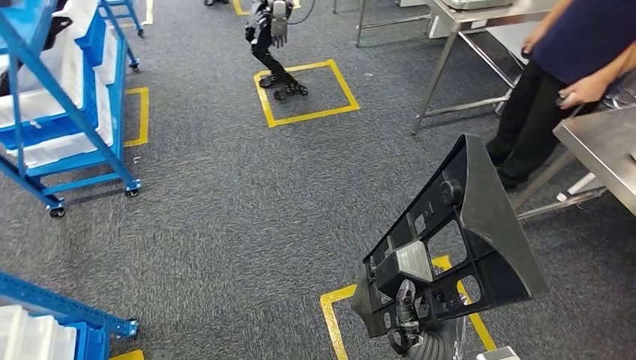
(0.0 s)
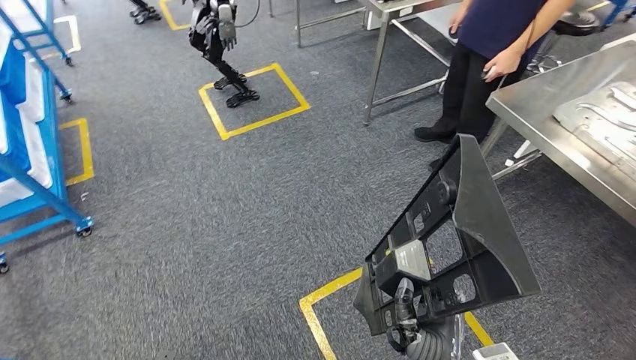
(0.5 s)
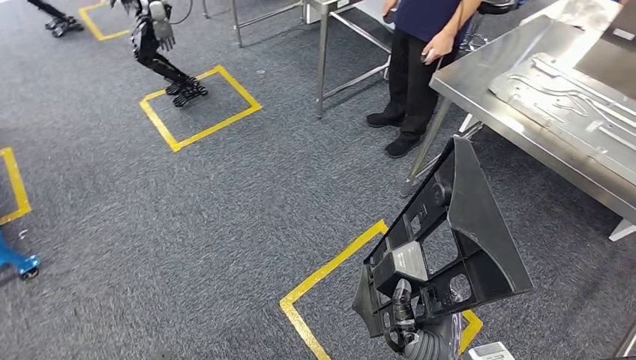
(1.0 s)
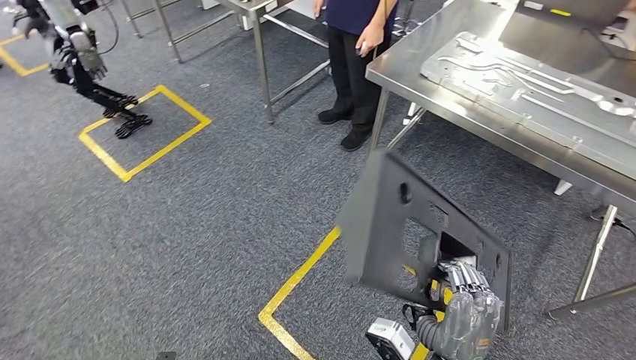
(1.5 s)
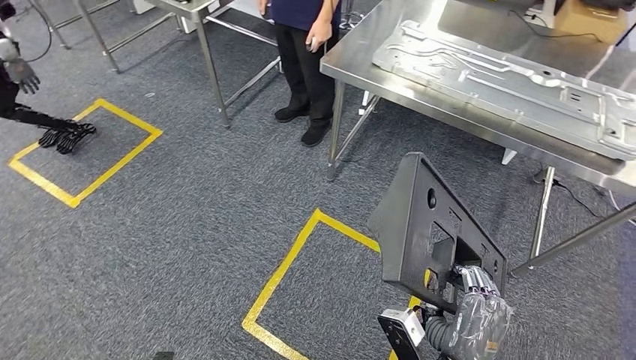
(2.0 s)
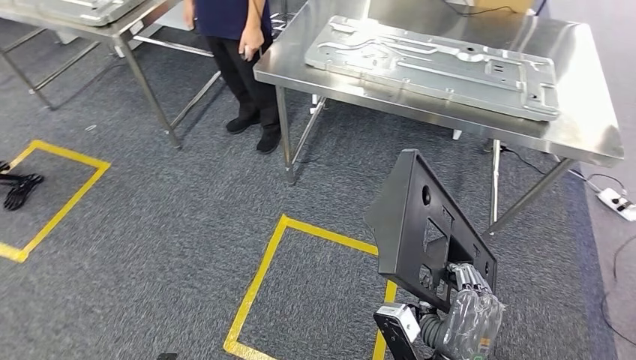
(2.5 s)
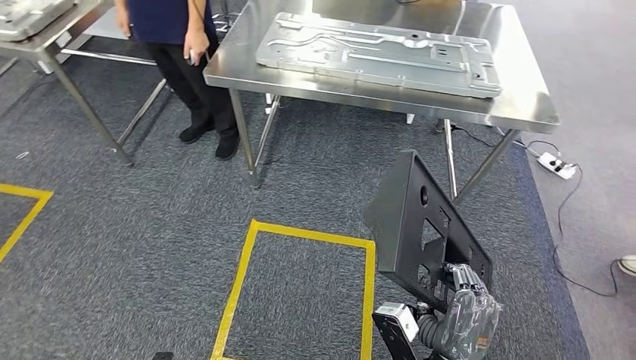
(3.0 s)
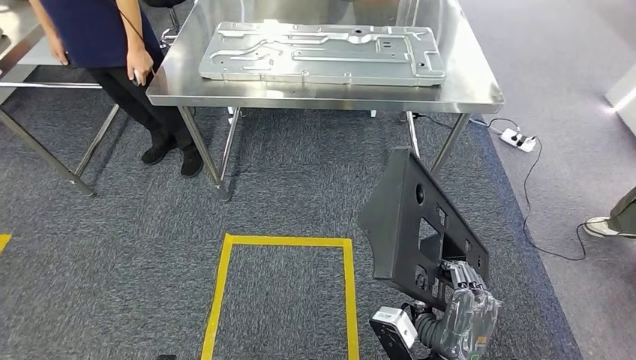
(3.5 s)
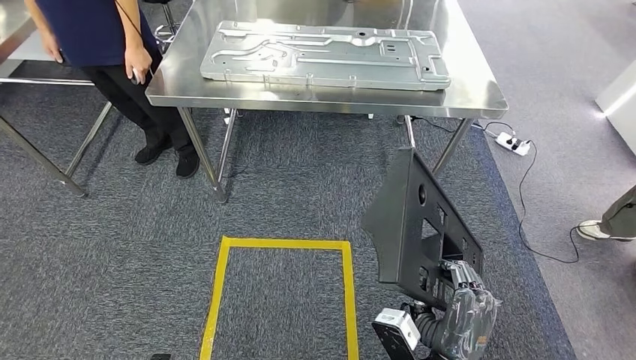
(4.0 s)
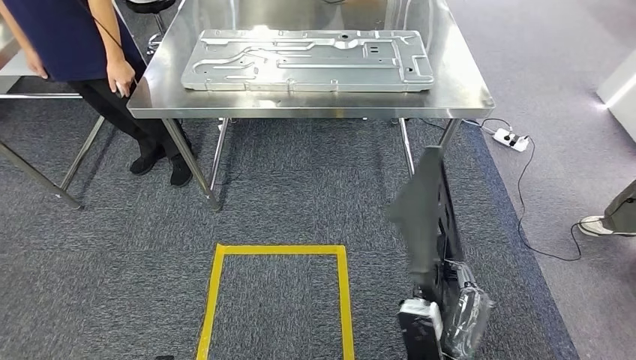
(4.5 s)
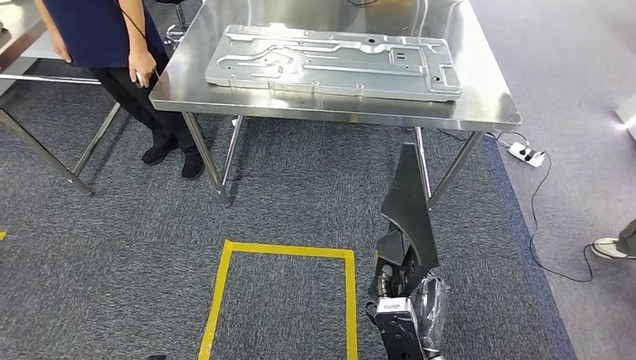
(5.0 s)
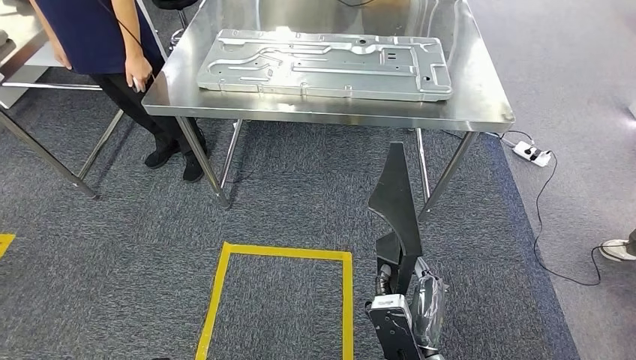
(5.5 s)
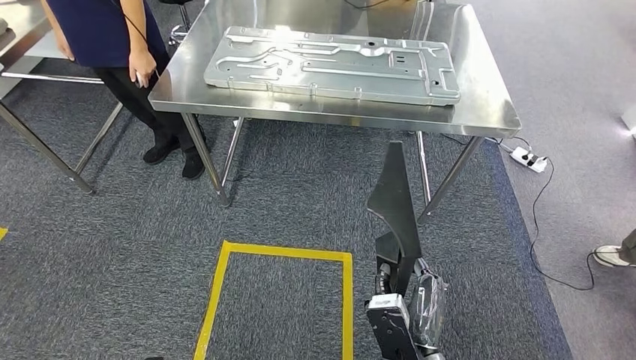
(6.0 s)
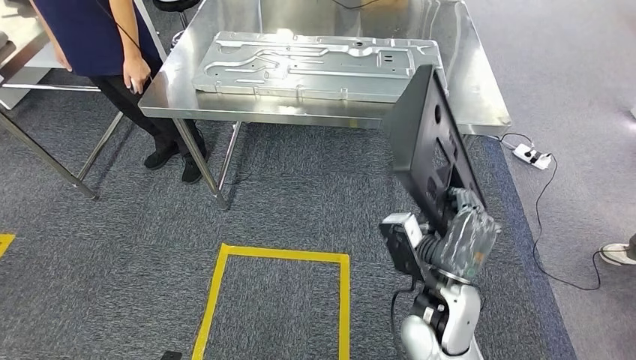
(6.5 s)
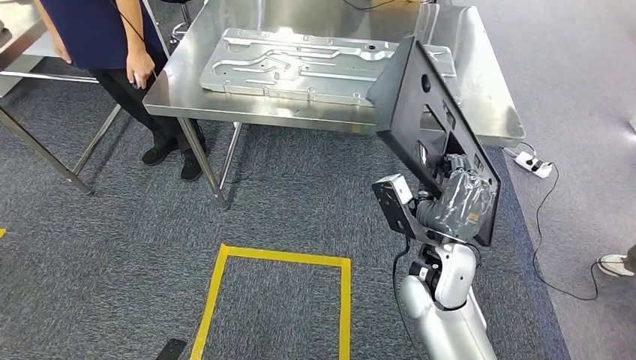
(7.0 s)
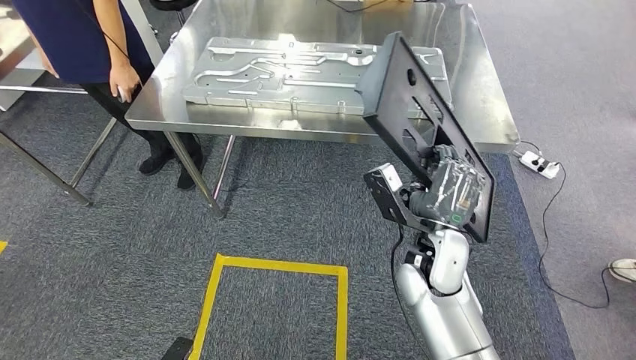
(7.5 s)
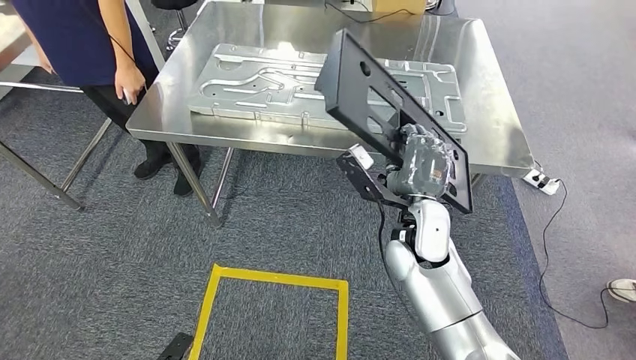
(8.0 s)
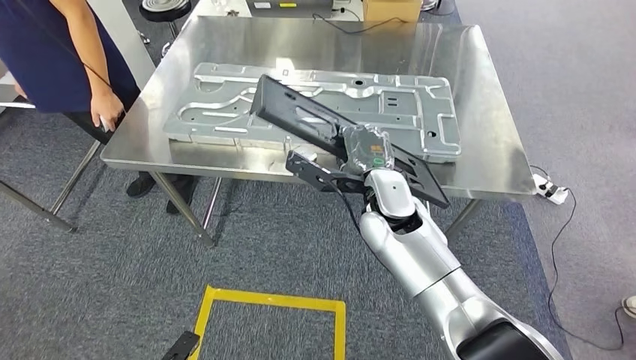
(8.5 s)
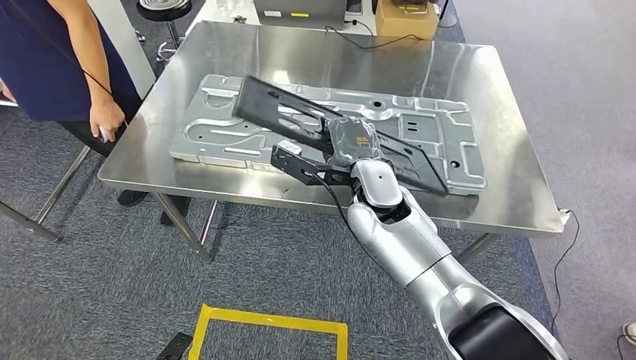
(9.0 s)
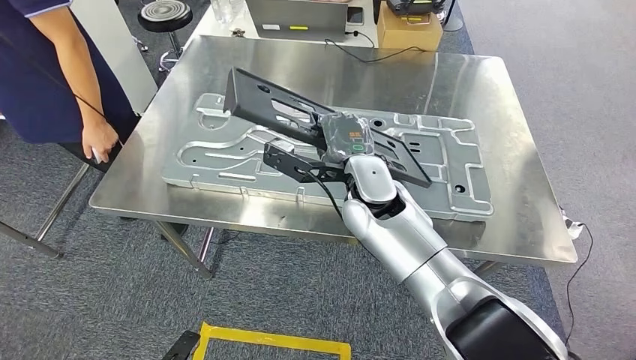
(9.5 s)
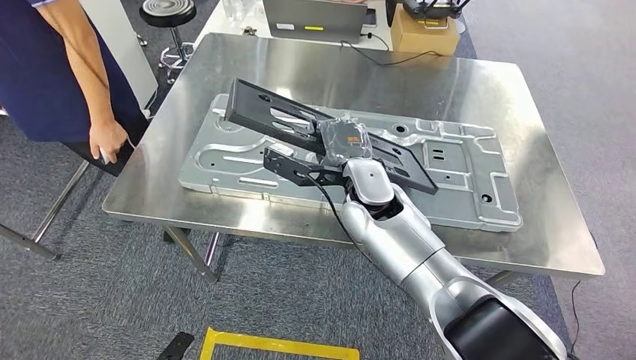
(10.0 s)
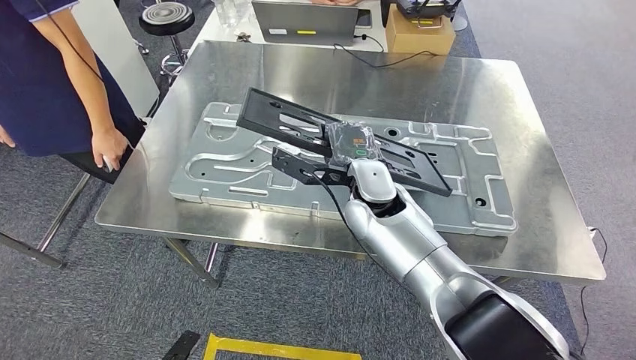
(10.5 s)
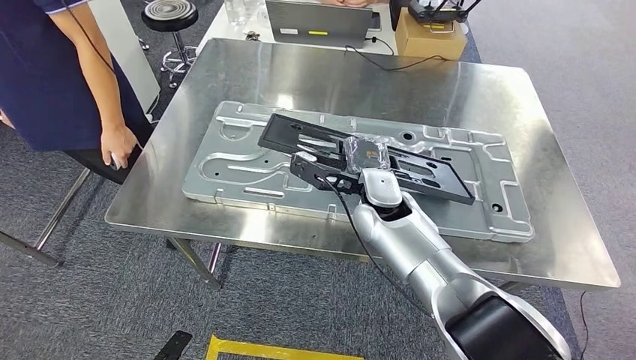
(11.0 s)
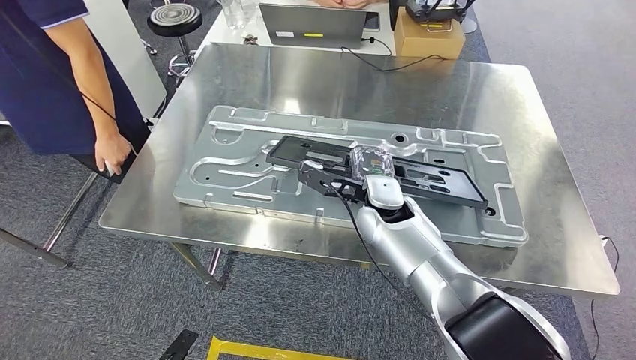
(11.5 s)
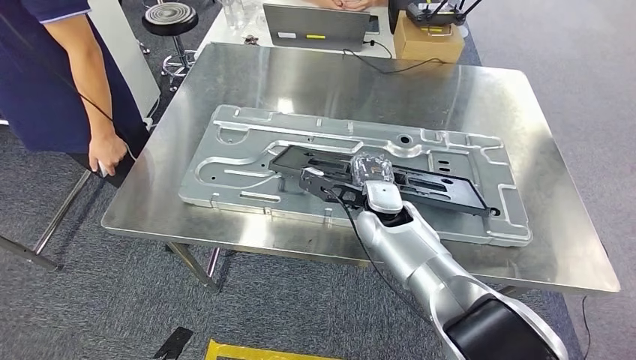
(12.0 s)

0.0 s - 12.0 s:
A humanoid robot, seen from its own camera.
Step, 0.0 s - 8.0 s: Move the large parts to the workbench.

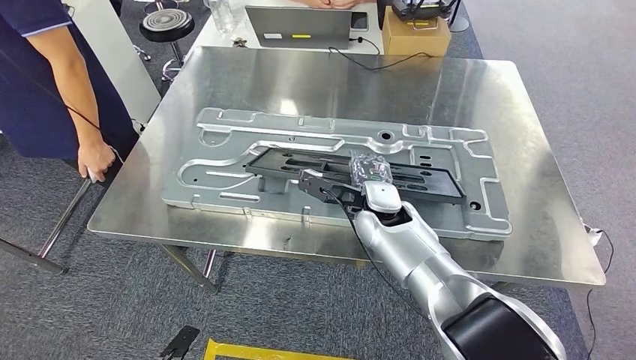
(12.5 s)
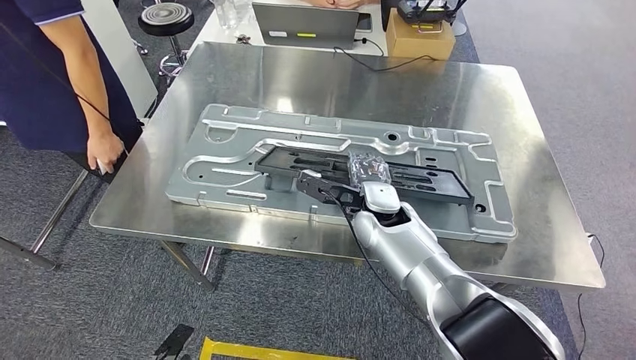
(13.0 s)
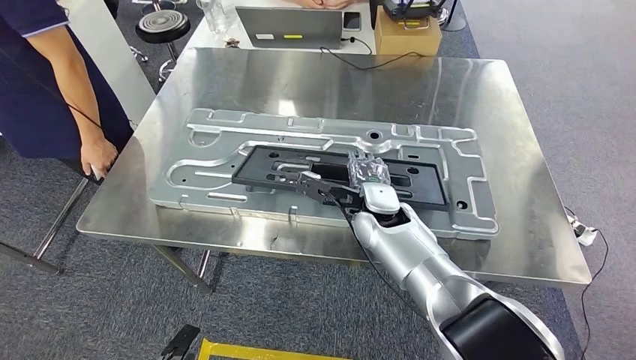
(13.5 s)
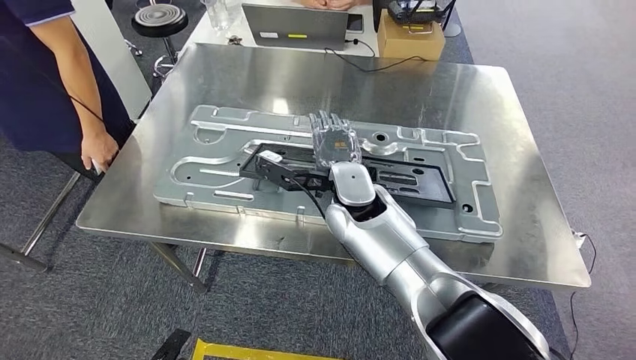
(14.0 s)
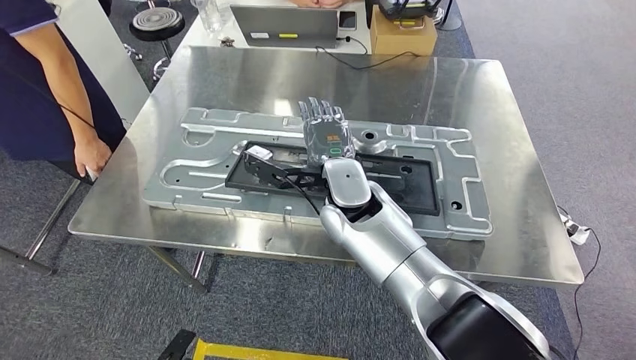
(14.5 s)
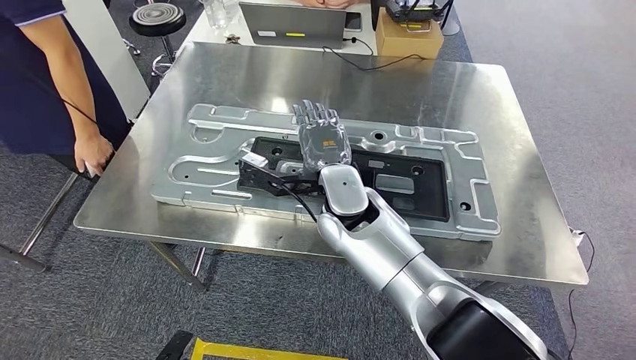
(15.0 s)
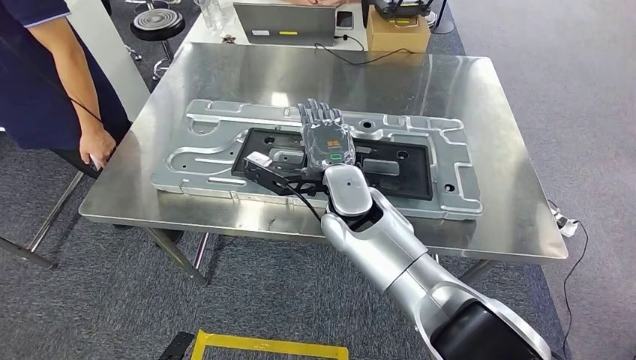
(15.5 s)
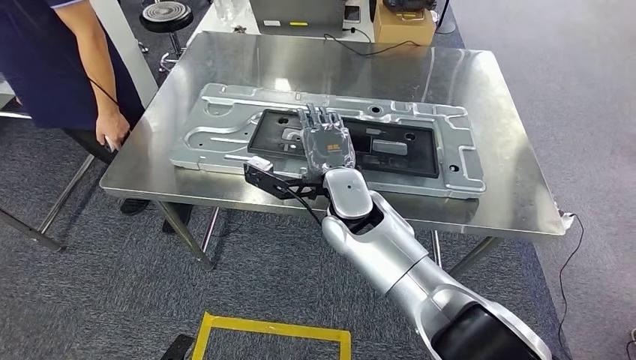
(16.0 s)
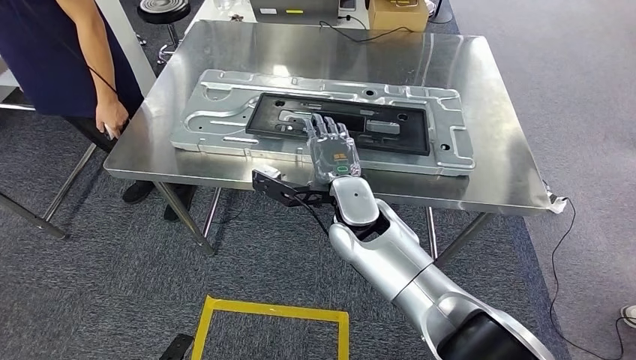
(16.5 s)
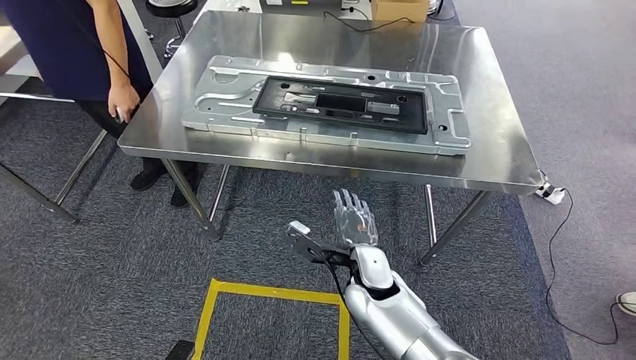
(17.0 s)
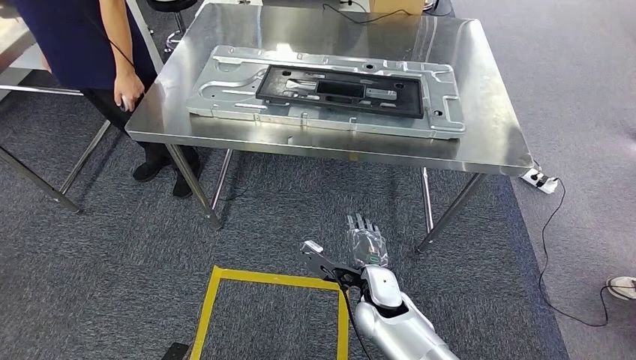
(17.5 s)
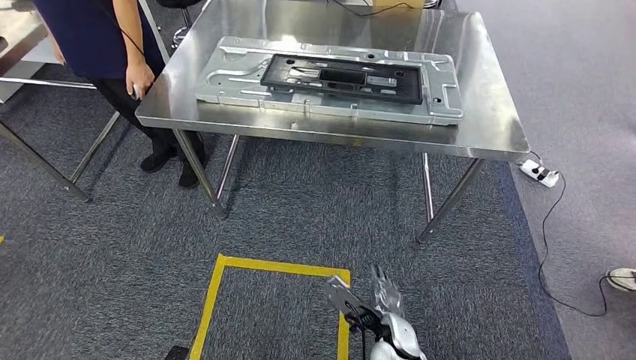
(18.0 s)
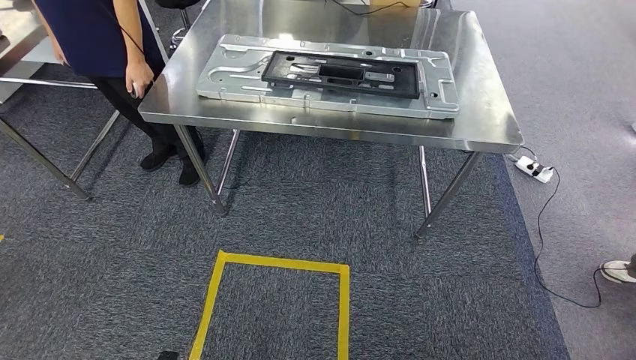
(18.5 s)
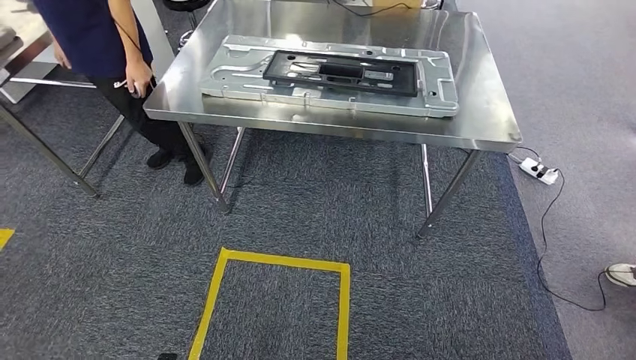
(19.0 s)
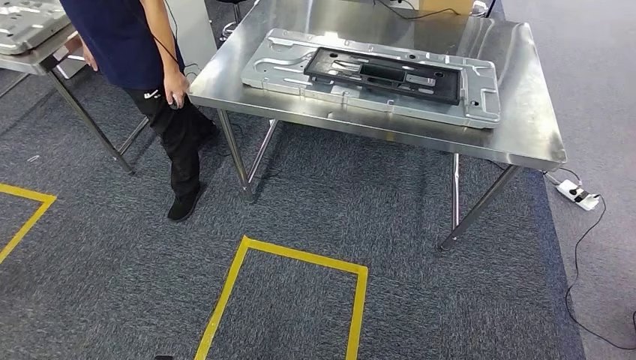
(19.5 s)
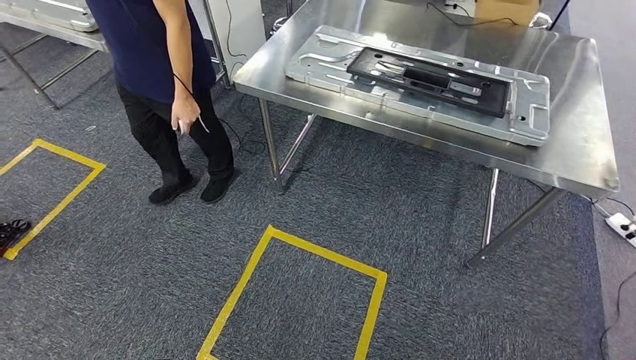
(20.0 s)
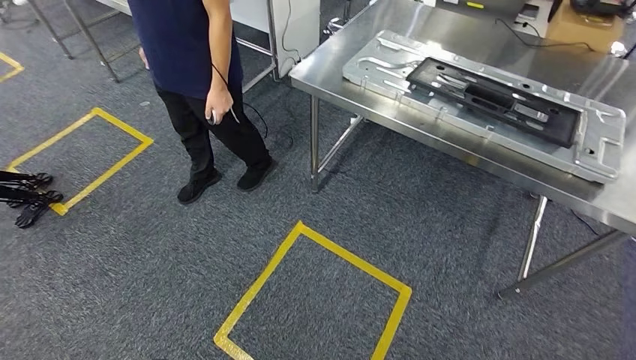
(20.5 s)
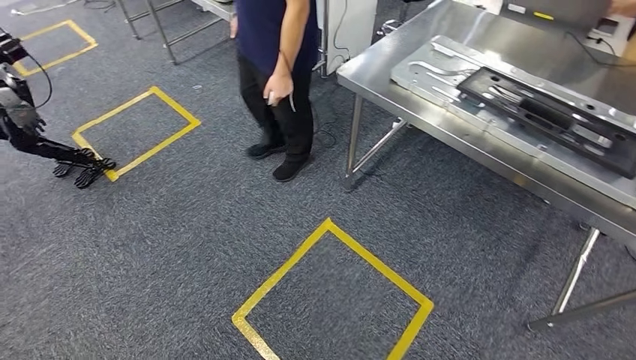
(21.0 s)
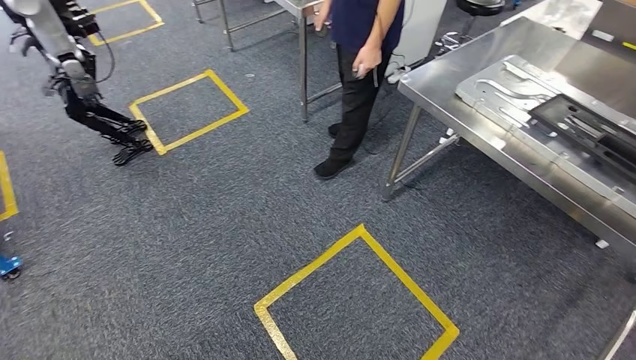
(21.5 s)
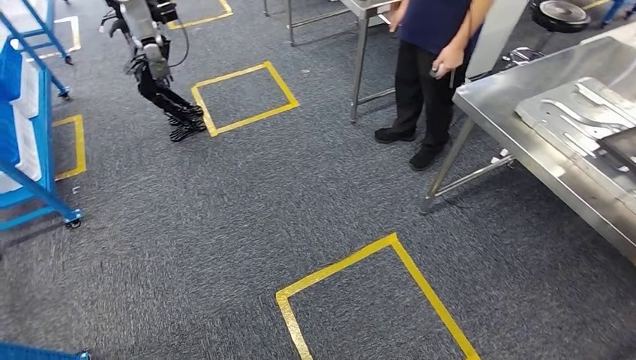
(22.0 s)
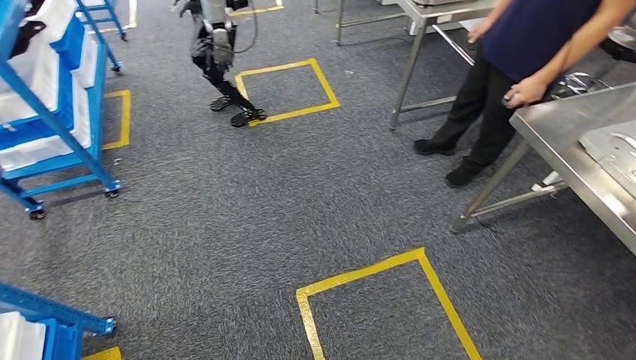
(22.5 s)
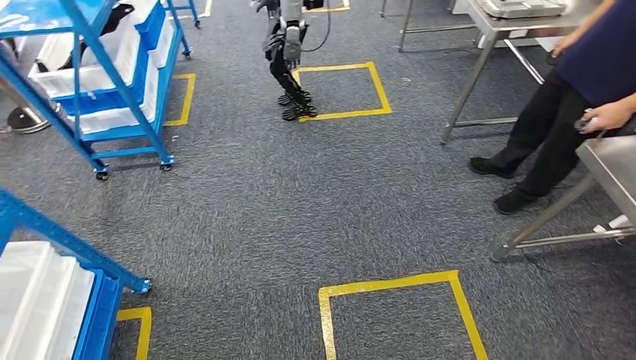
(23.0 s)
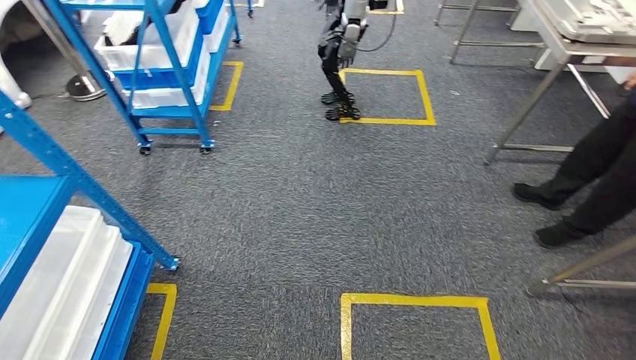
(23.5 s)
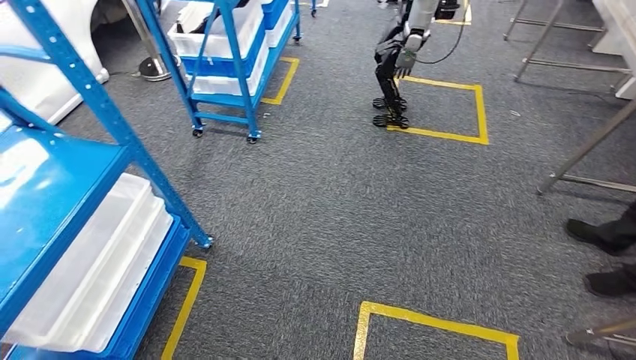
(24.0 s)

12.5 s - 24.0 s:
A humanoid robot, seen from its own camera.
Step, 12.5 s - 17.0 s: Insert the large parts into the corresponding slots on the workbench.
